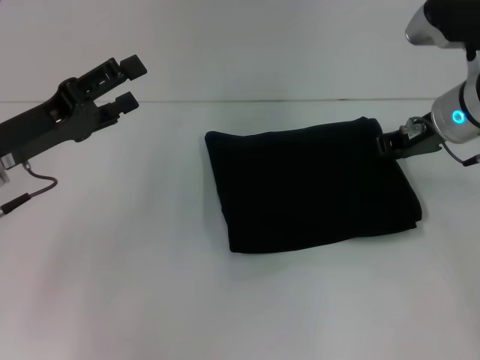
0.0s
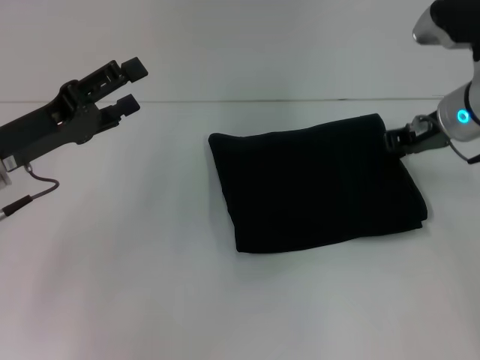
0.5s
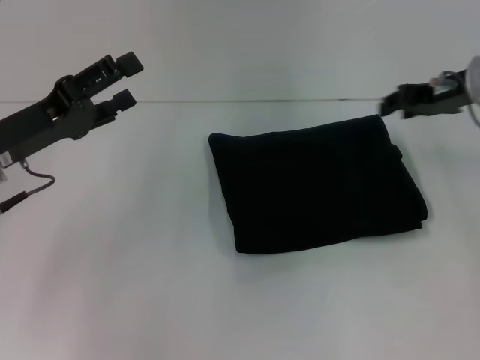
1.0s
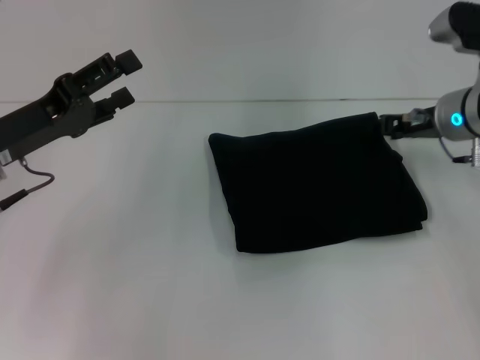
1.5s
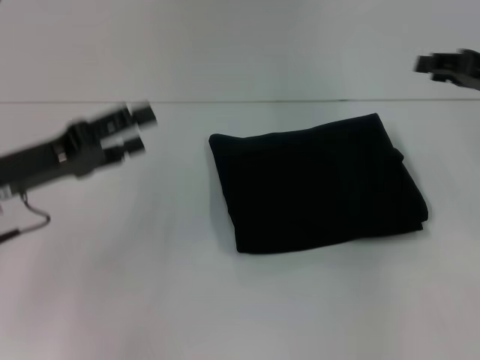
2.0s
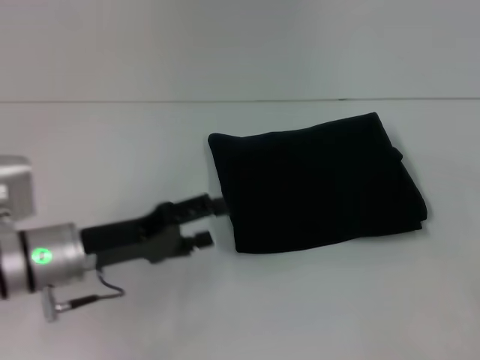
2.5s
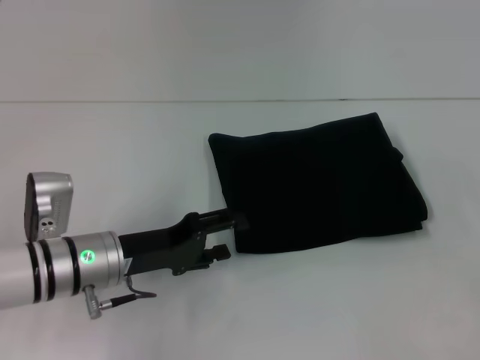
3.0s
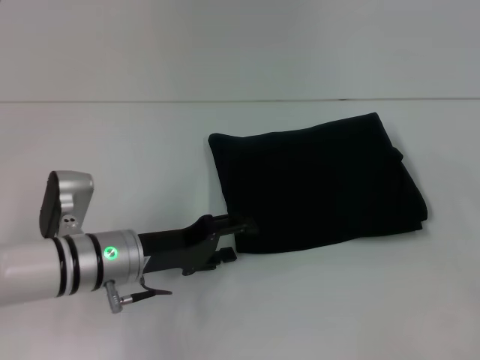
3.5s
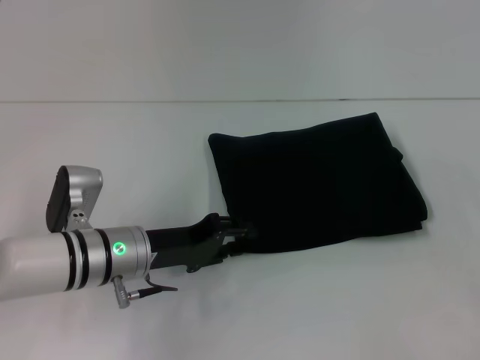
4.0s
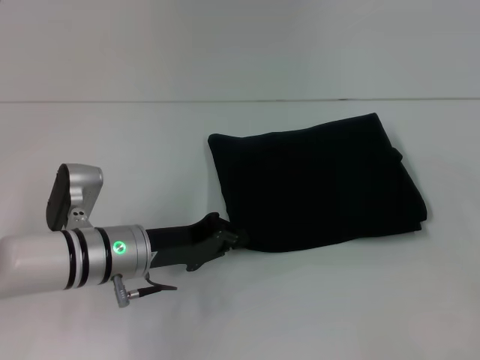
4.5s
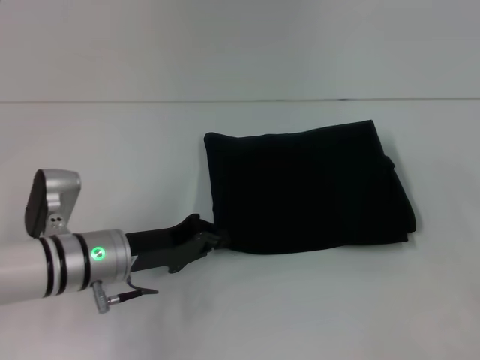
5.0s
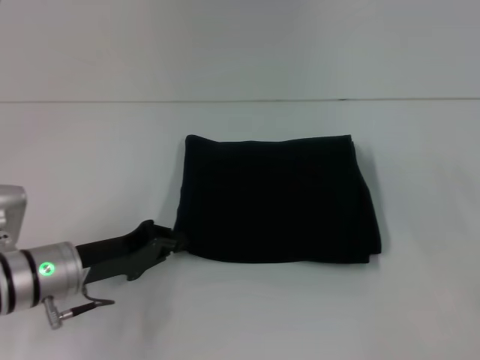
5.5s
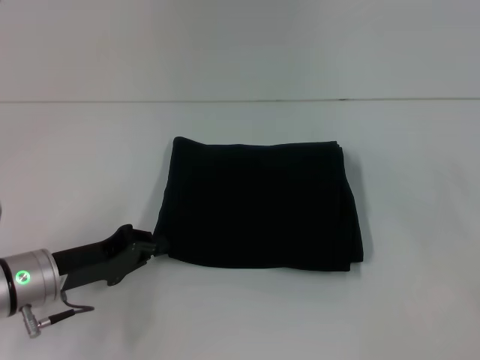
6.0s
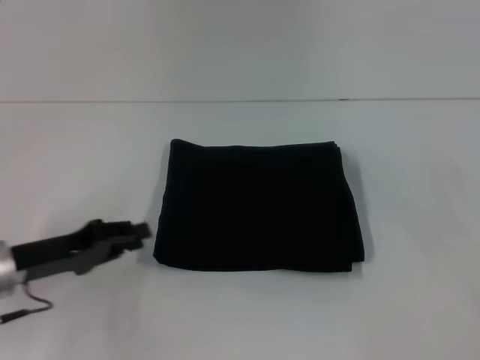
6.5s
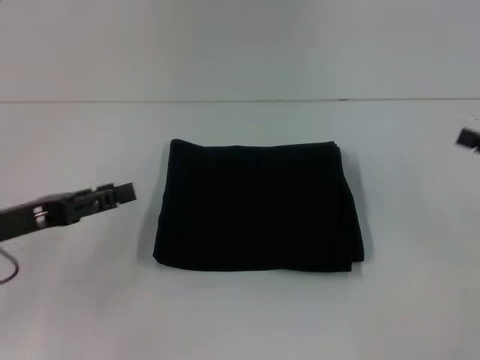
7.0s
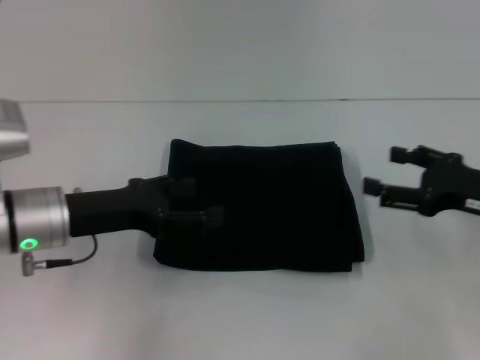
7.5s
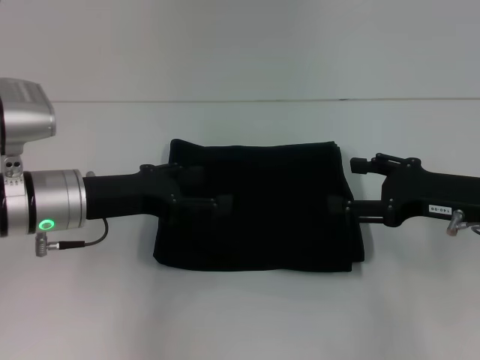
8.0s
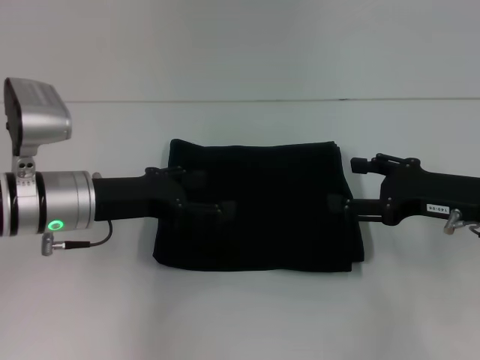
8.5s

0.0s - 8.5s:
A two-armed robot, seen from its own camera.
0.0s - 2.0s: The right gripper heads to the right, covering about 10 cm, and opens.
2.0s - 4.0s: The left gripper moves to the right and downward, about 15 cm; the right gripper heads backward, to the right and downward, covering some 15 cm, and opens.
4.0s - 6.5s: The left gripper travels to the left by about 10 cm, and closes.
6.5s - 8.5s: The right gripper shifts approximately 10 cm to the left. Meanwhile the left gripper heads to the right and forward, covering some 10 cm, and opens.

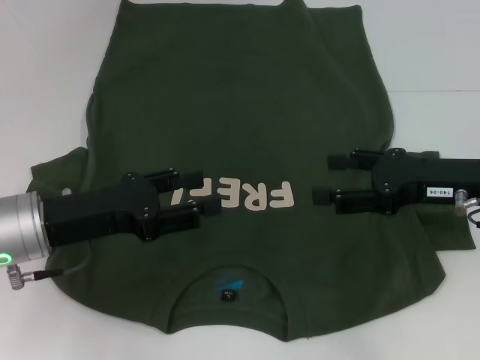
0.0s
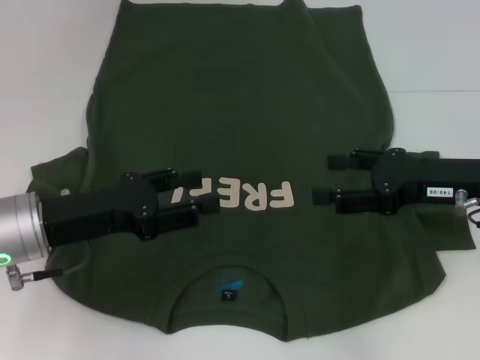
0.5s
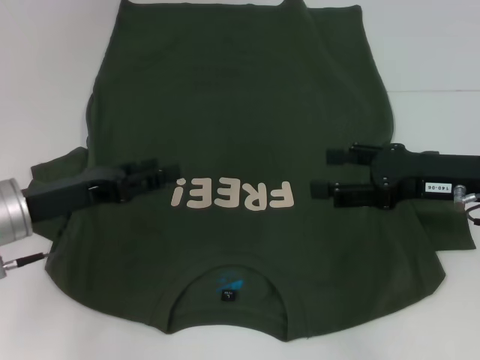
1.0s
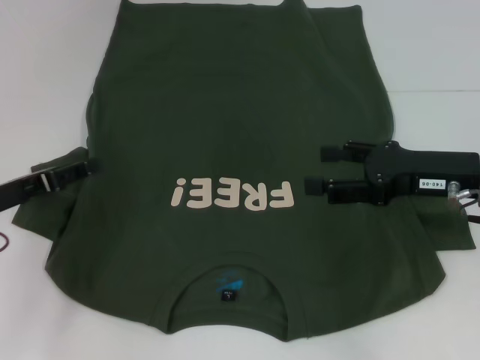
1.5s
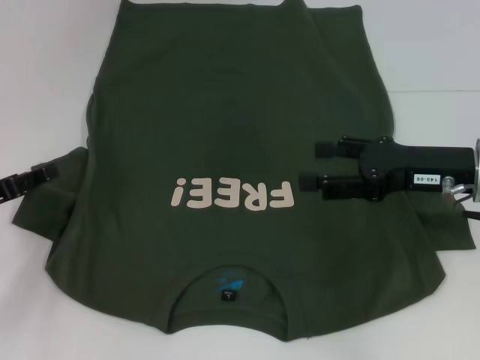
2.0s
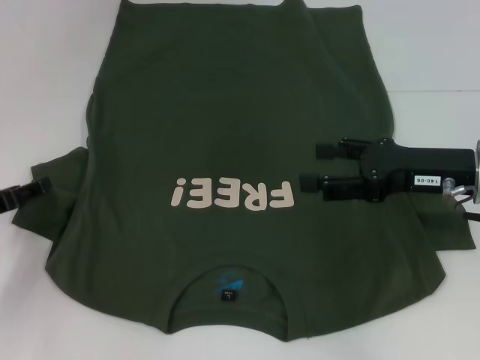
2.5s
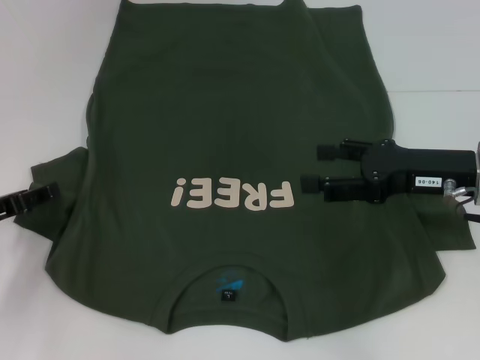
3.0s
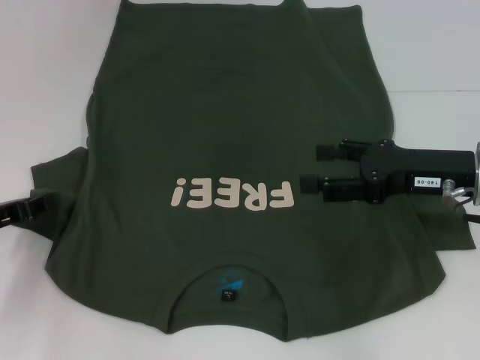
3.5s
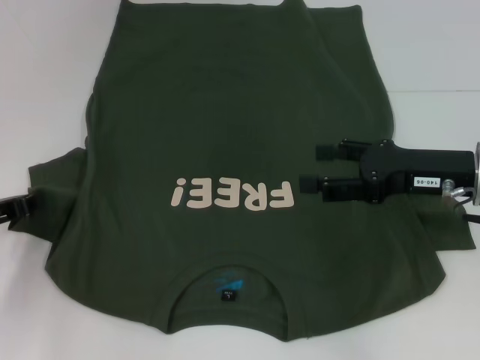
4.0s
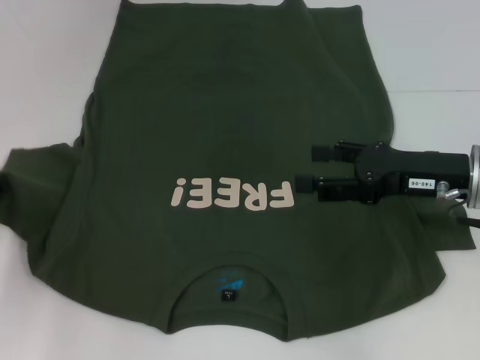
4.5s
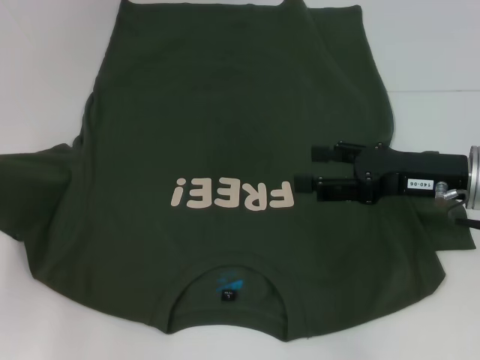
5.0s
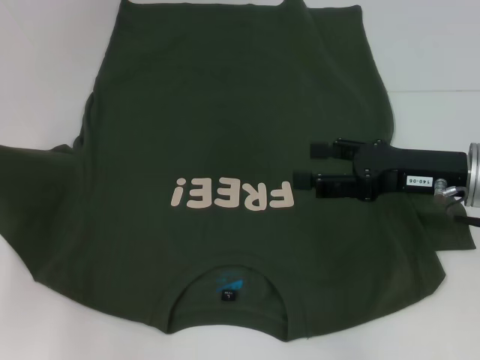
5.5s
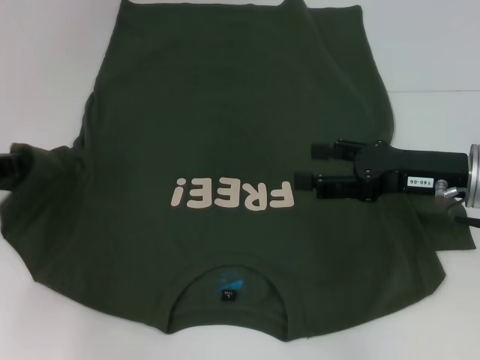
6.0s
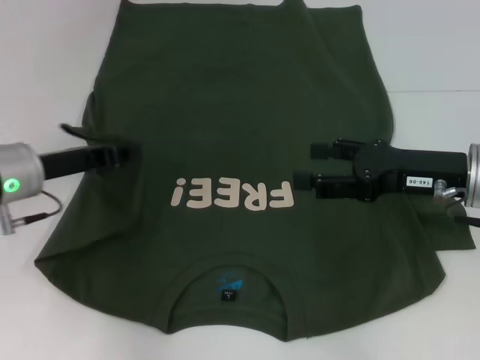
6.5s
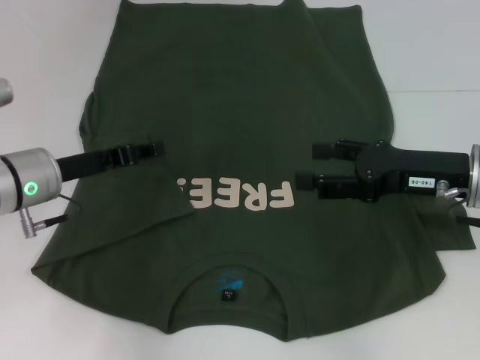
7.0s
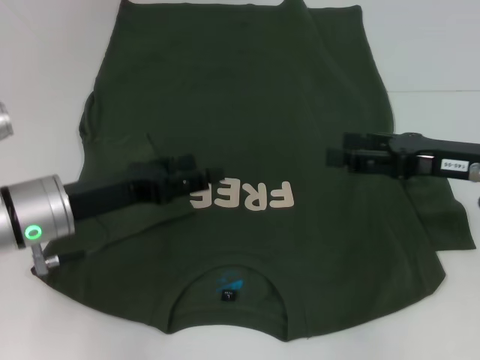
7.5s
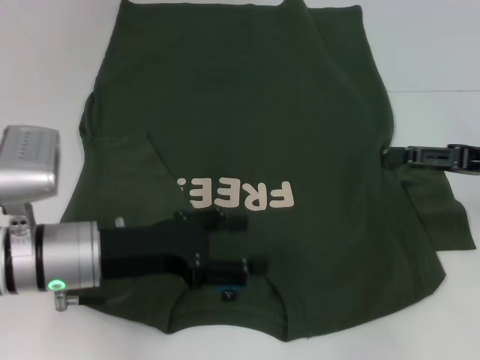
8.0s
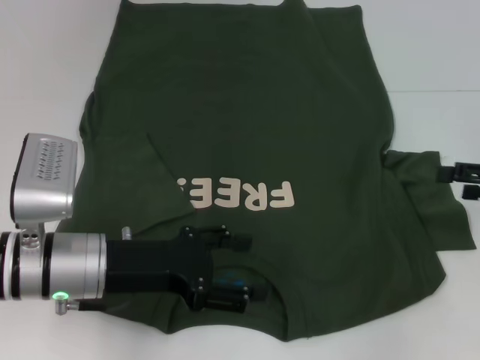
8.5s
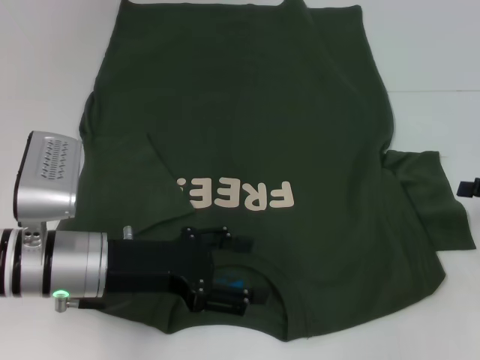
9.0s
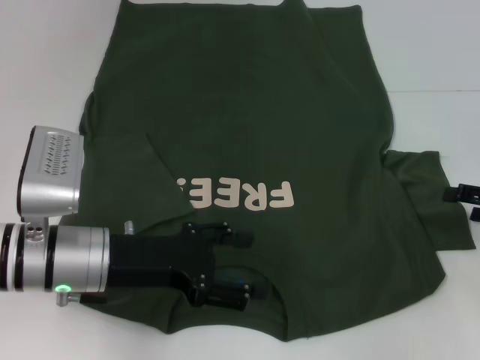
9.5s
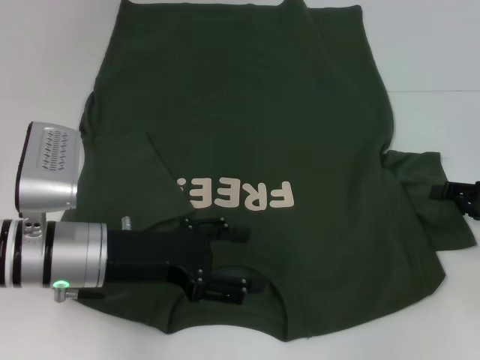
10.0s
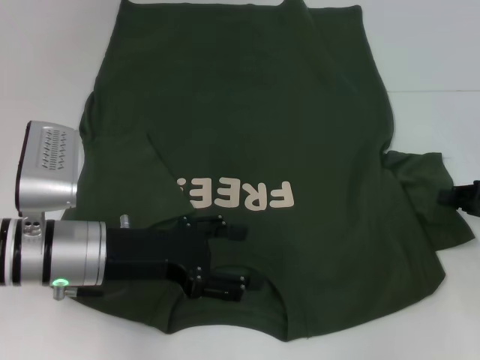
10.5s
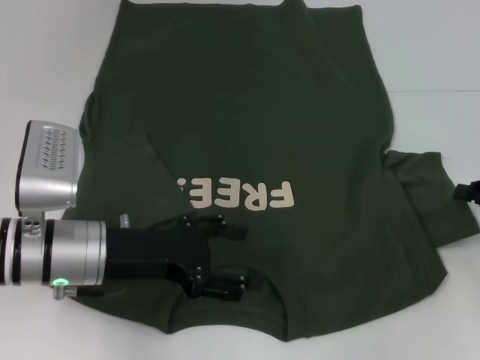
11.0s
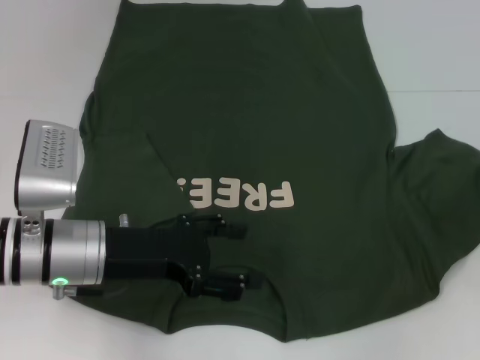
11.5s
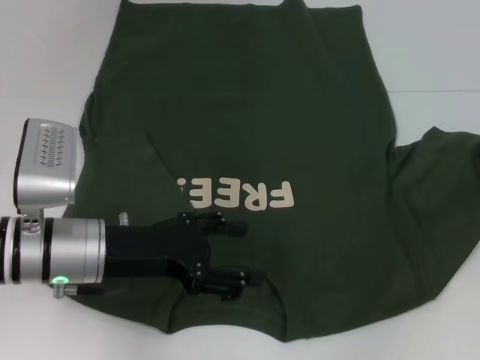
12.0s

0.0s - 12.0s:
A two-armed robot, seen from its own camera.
Step, 0.0s - 7.0s: Fold the bottom left sleeve with your left hand.
0.0s - 2.0s: The left gripper heads to the left, covering about 10 cm.
2.0s - 4.0s: The left gripper closes its fingers.
4.0s - 6.0s: There are only small adjustments of the grippers.
6.0s - 8.0s: The left gripper travels to the right by roughly 15 cm, and opens up, while the right gripper travels to the right by some 10 cm.
8.0s - 10.0s: The right gripper goes some 5 cm downward.
10.0s - 12.0s: The right gripper changes place by some 5 cm, and closes its fingers.

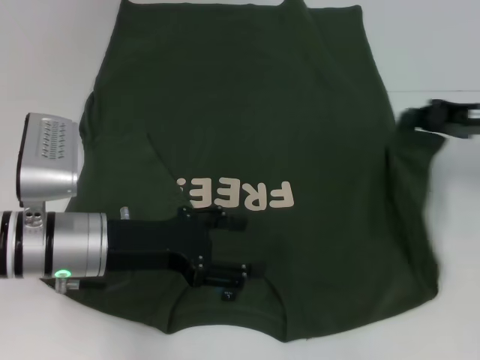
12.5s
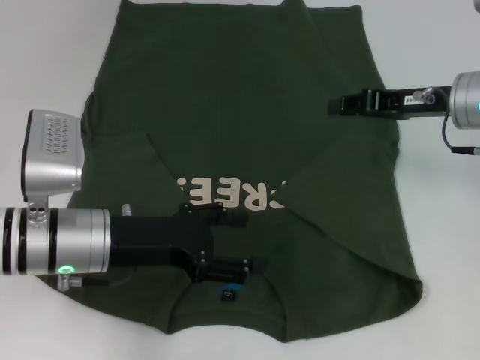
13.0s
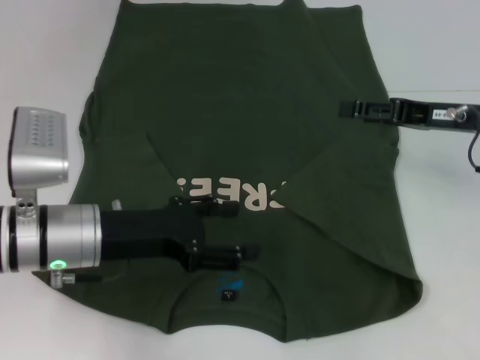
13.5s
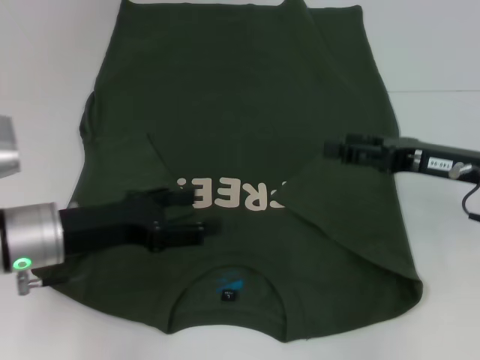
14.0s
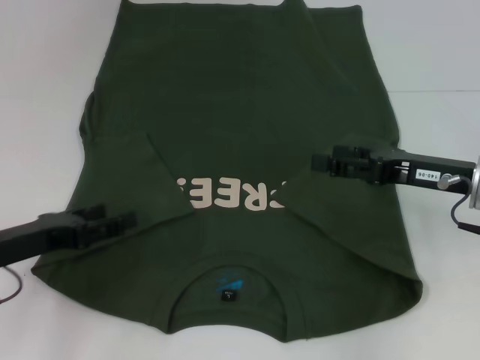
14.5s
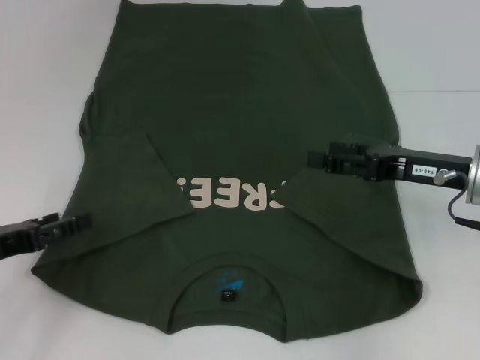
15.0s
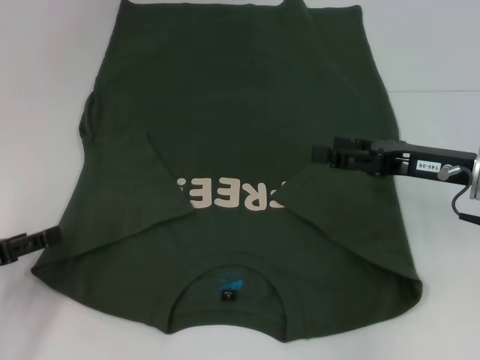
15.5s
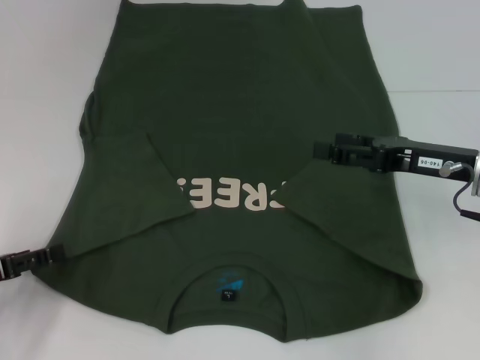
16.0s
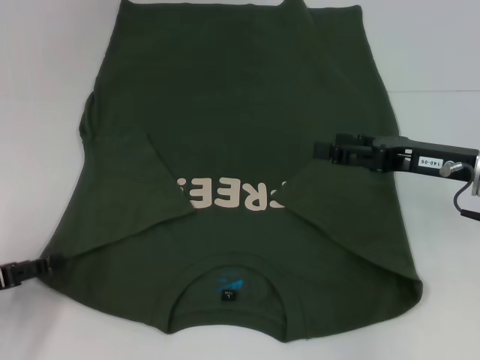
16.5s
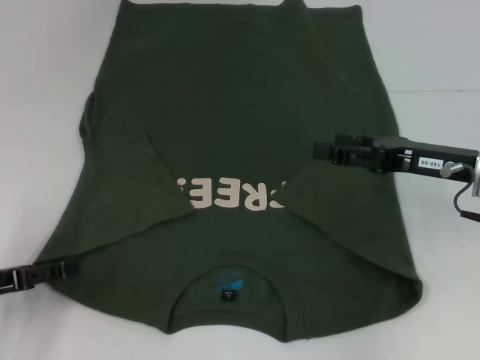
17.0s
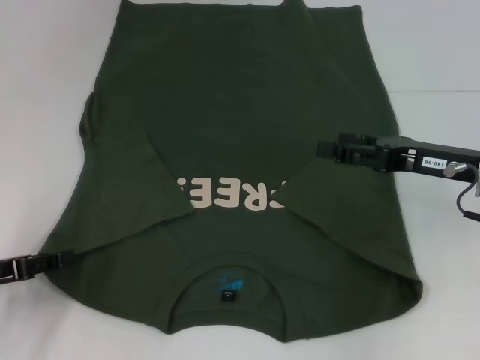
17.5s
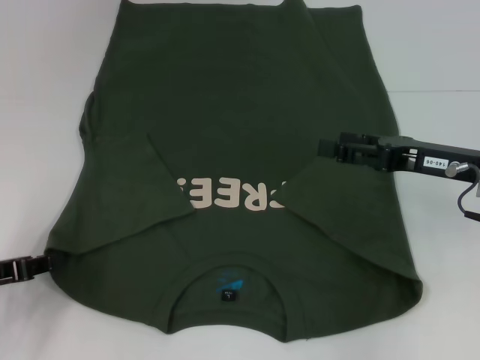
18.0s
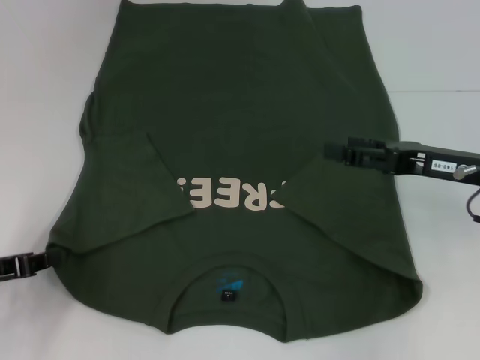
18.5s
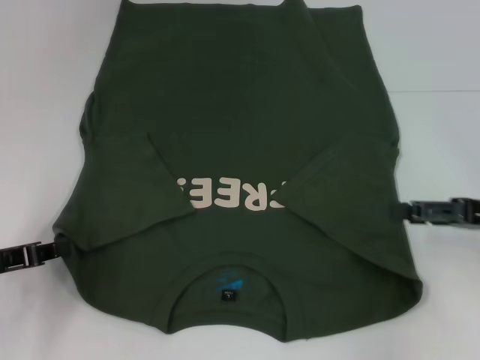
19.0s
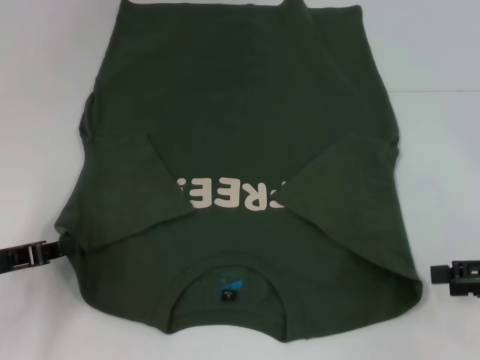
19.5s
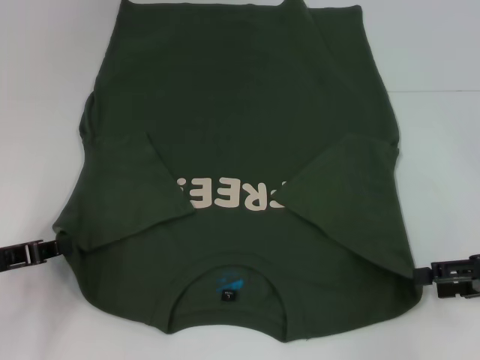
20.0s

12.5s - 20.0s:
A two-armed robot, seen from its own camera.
Step, 14.0s - 18.0s: Grab the bottom left corner with your left hand.
12.5s - 14.5s: The left gripper travels to the left by some 10 cm. The right gripper moves backward and to the left, some 10 cm, and opens up.
14.5s - 16.5s: The left gripper travels to the left by approximately 5 cm.
16.5s - 18.0s: The left gripper closes its fingers.
18.0s - 20.0s: The left gripper closes up; the right gripper heads to the right and backward, covering roughly 10 cm.
